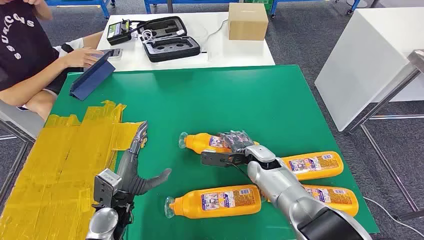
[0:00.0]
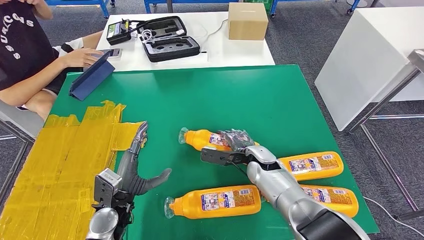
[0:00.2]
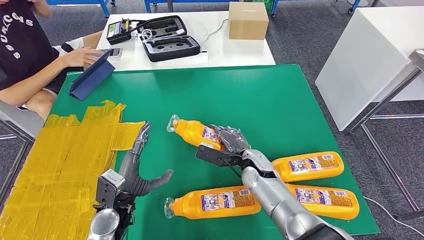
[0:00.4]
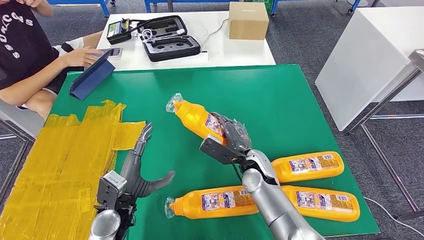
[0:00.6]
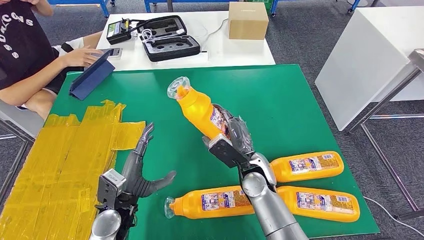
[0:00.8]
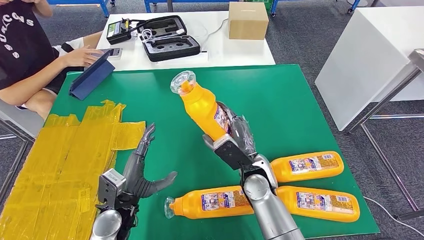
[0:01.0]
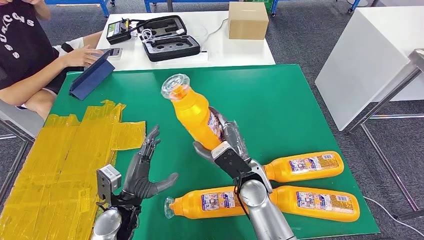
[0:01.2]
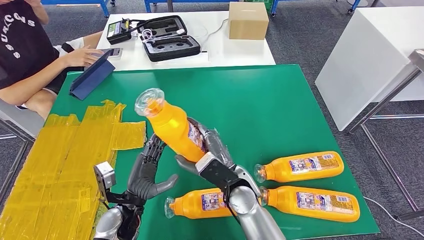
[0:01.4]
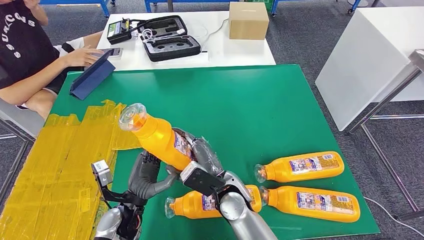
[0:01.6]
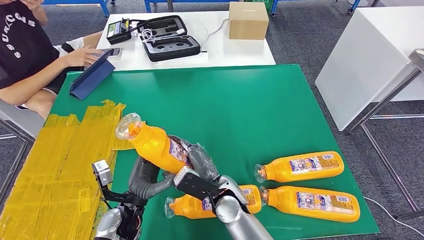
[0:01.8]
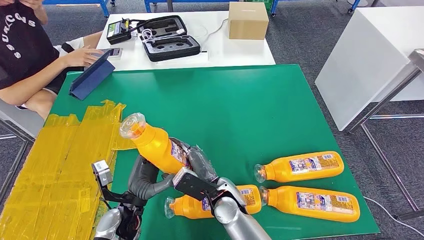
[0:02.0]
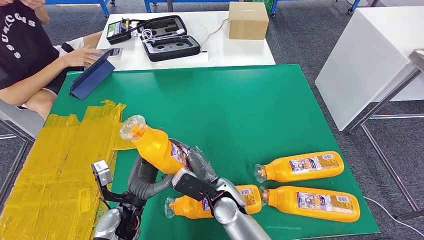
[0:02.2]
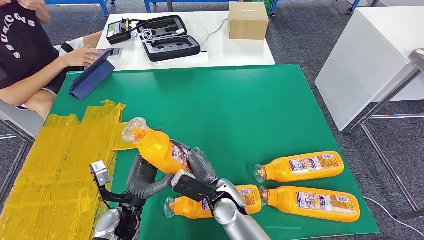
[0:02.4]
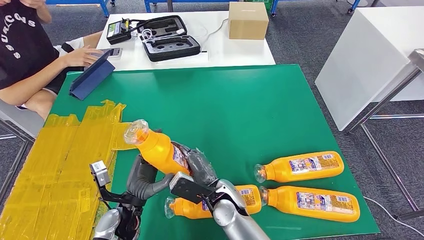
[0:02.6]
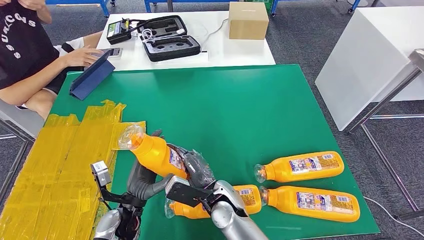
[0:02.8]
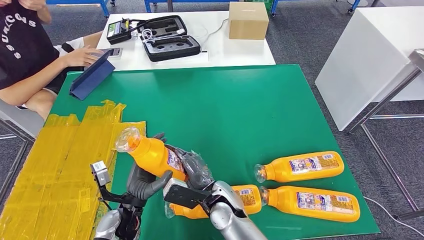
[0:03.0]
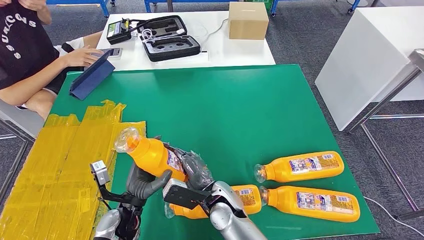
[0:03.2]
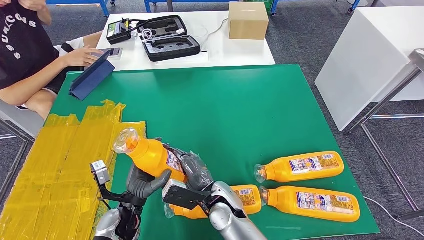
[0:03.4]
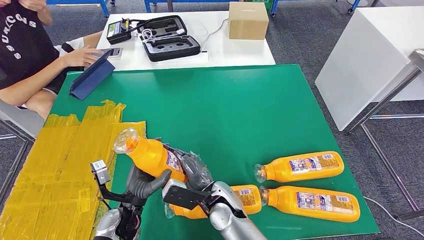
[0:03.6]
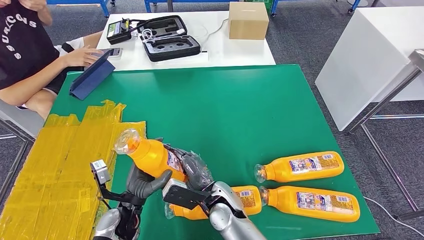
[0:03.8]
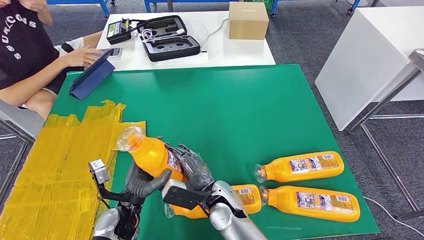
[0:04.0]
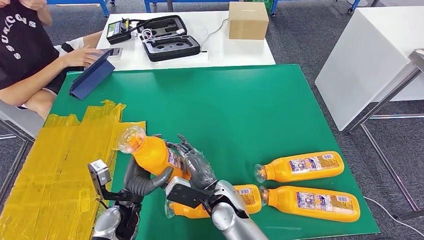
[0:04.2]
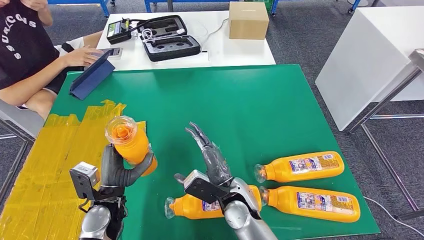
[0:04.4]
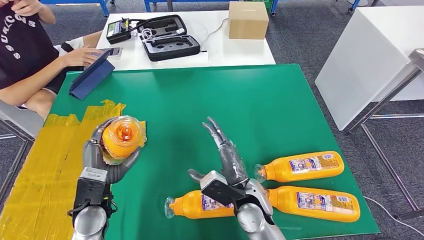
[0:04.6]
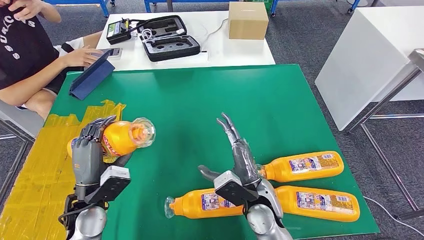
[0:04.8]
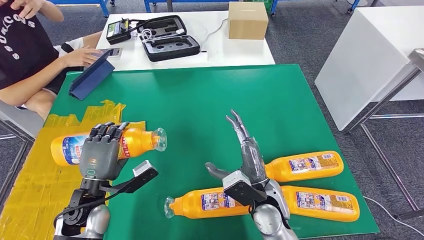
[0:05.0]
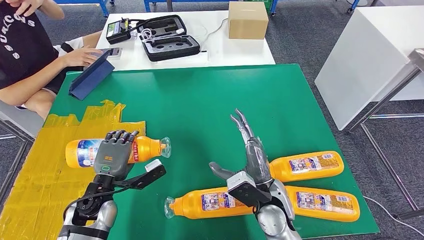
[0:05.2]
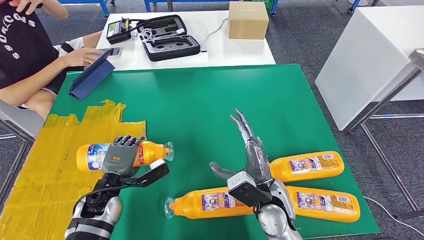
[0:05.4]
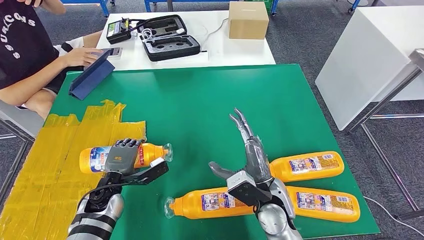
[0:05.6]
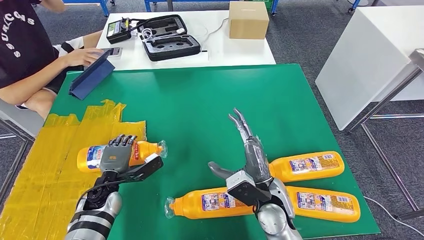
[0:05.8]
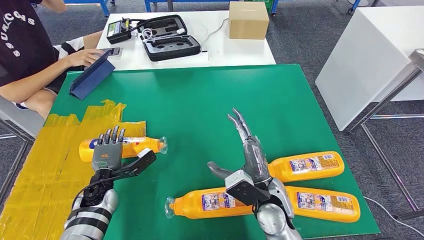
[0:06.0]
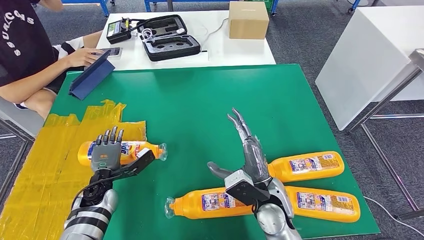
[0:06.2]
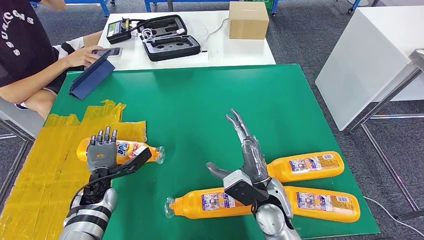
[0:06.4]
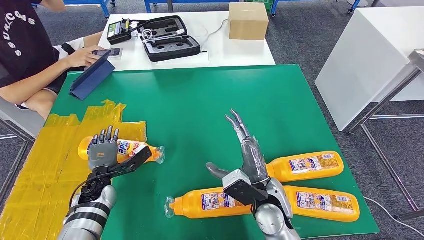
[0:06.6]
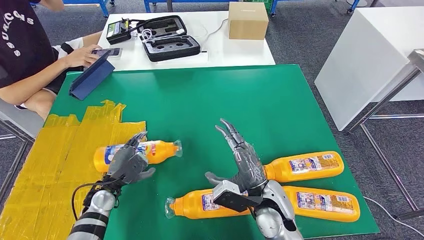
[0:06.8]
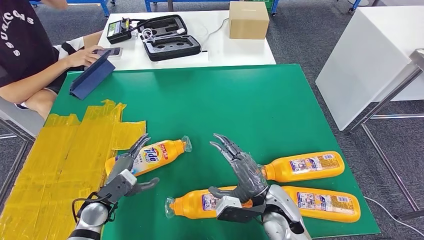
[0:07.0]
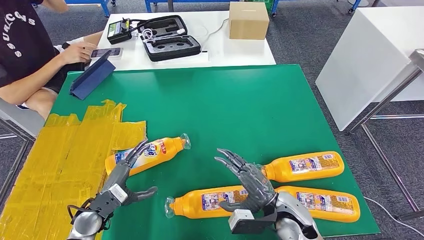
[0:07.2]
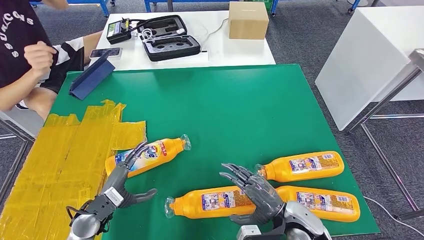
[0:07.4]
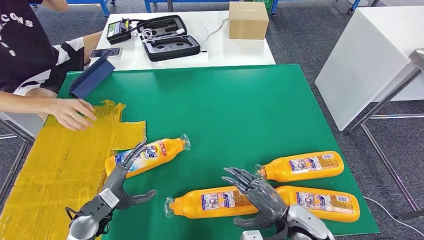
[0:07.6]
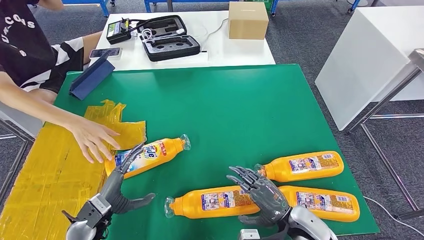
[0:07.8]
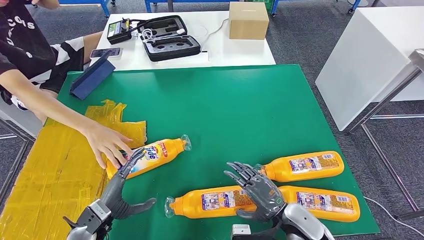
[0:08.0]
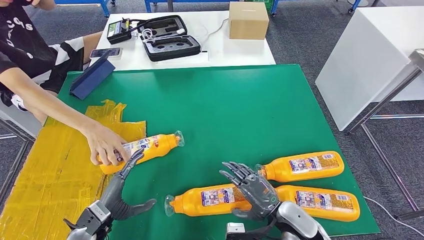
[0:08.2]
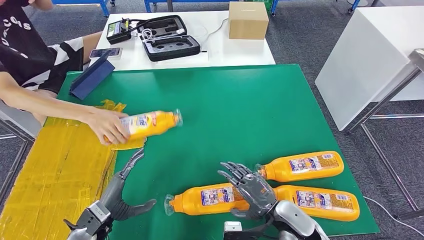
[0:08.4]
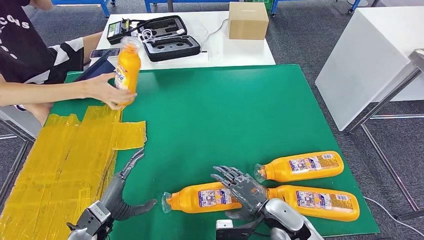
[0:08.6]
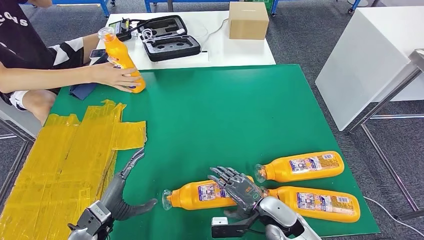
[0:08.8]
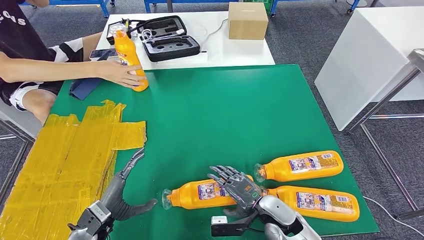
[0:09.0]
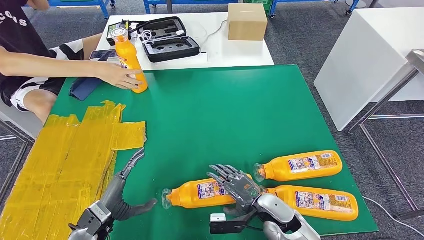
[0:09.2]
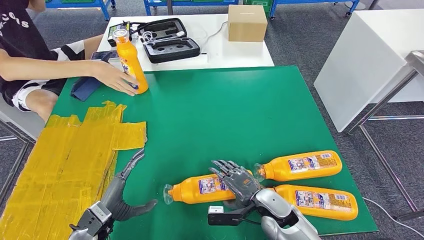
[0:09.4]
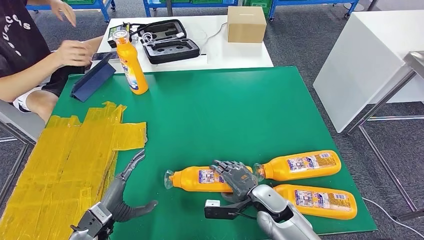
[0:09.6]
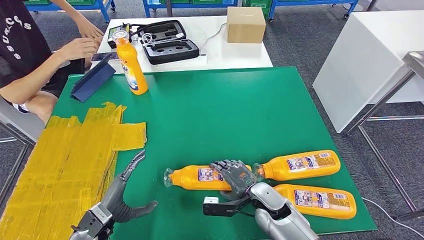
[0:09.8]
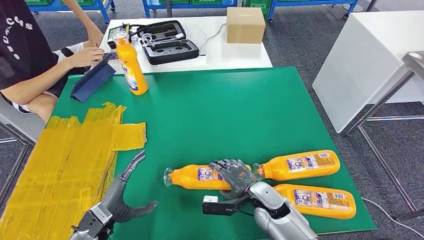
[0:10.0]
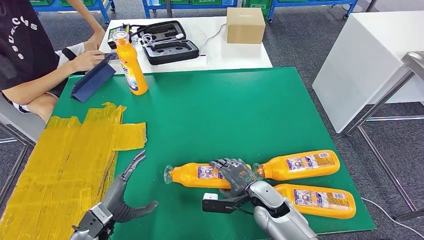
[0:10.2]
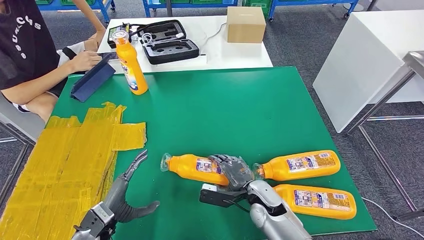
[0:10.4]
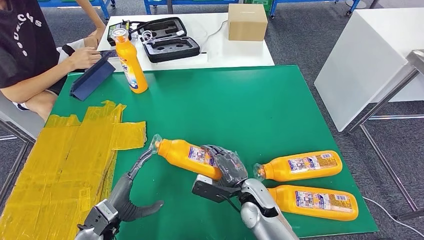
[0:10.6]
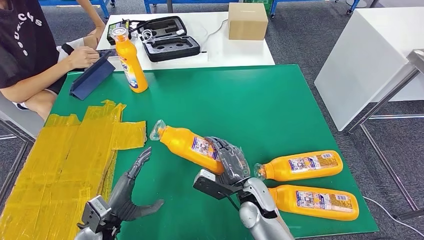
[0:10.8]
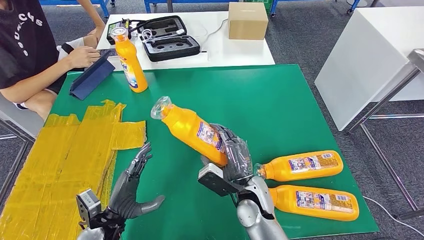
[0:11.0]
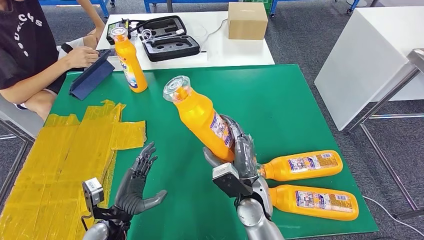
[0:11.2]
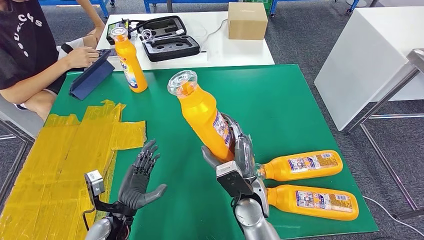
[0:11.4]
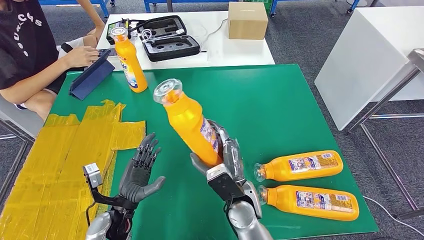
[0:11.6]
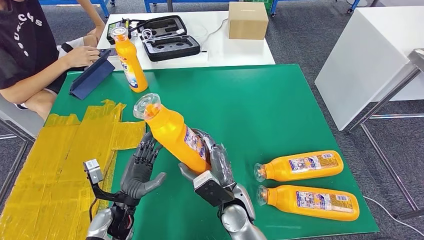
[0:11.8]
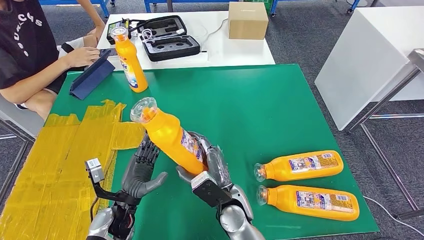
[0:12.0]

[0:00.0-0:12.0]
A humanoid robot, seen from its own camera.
Step, 0:00.0 to 0:03.6: Take the fast-moving consumer goods bottle from the table.
Step, 0:03.8 to 0:09.0: Flip the fast-moving consumer goods bottle to the front side.
0:01.6 to 0:03.0: The hands stay close to where they were, moving slightly.
0:04.4 to 0:06.0: The left hand heads forward and to the left, covering about 10 cm. Meanwhile the right hand goes approximately 5 cm to the right.
0:06.0 to 0:07.6: The right hand is displaced to the right, downward and backward by approximately 10 cm. Meanwhile the left hand shifts roughly 10 cm backward.
0:07.6 to 0:09.0: The right hand shifts by about 5 cm.

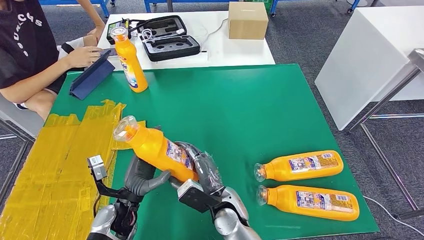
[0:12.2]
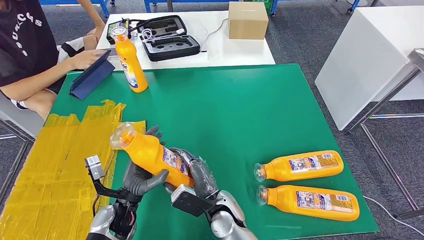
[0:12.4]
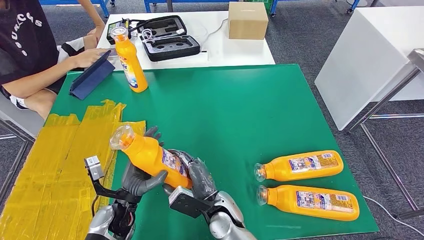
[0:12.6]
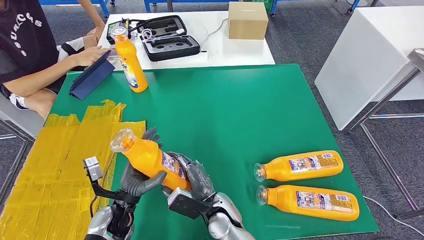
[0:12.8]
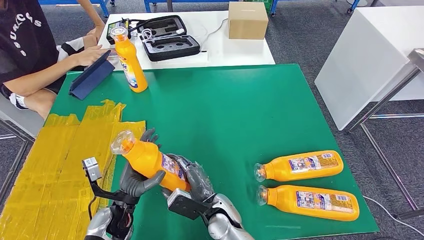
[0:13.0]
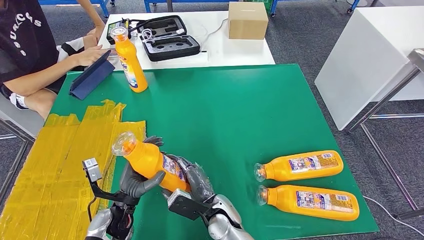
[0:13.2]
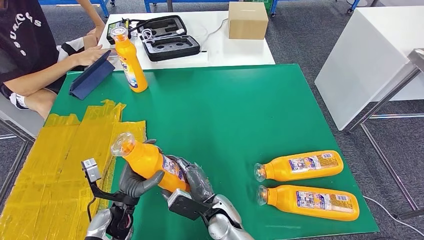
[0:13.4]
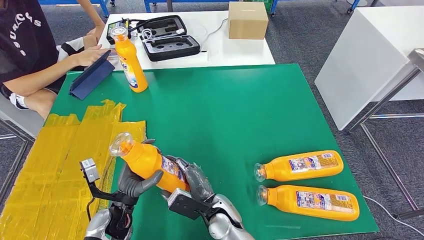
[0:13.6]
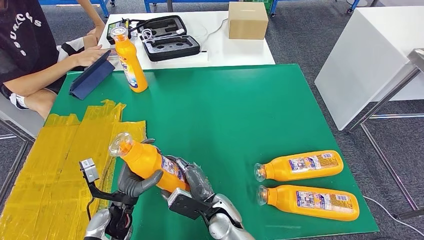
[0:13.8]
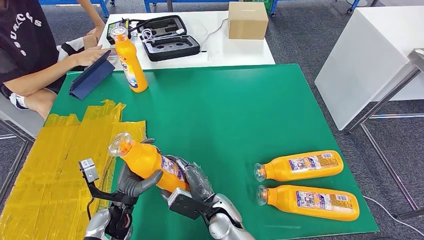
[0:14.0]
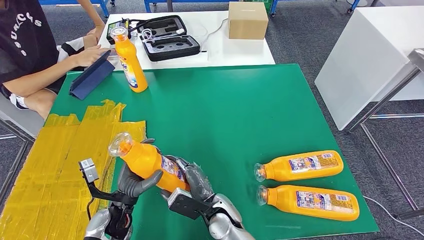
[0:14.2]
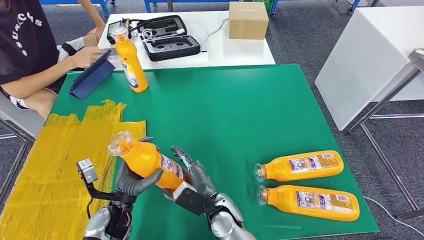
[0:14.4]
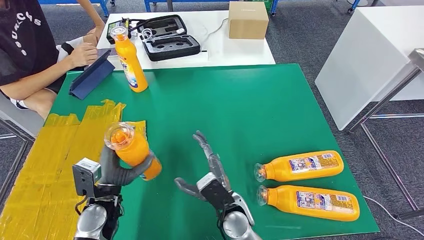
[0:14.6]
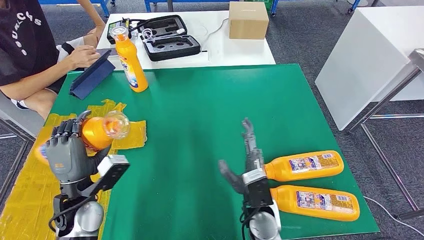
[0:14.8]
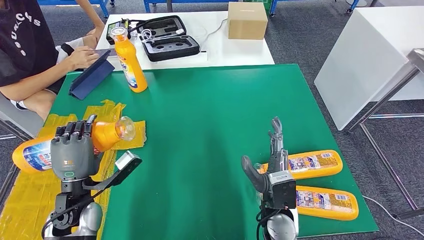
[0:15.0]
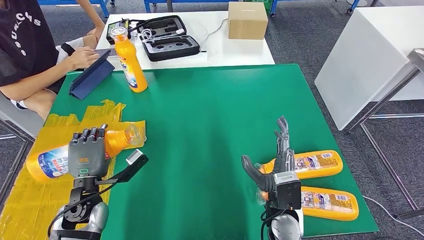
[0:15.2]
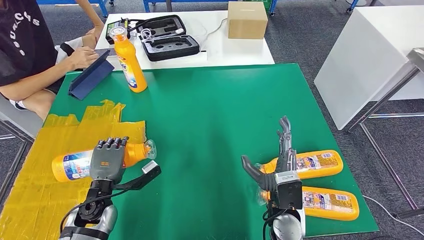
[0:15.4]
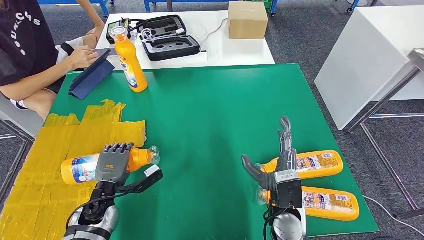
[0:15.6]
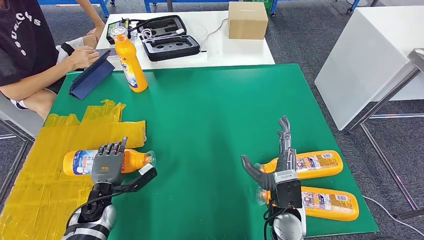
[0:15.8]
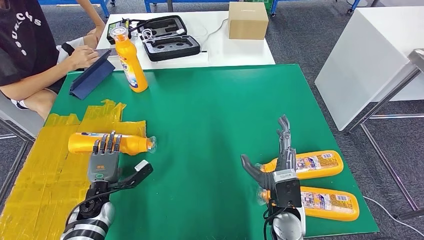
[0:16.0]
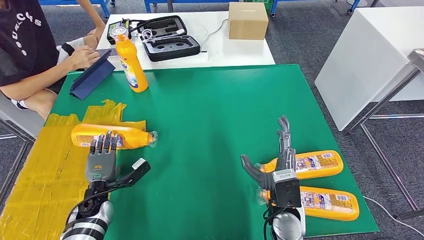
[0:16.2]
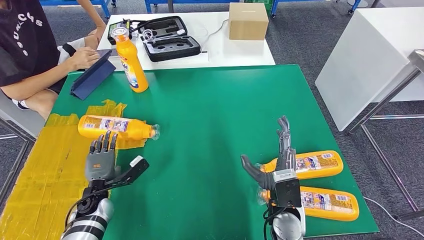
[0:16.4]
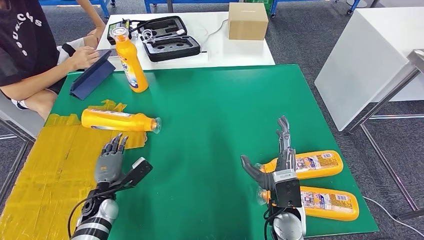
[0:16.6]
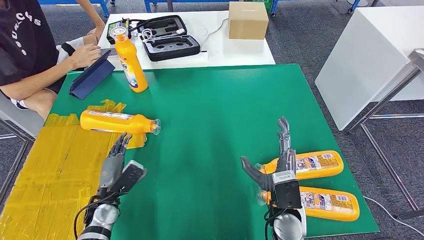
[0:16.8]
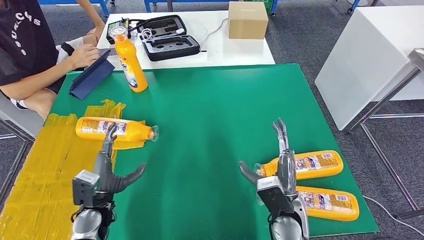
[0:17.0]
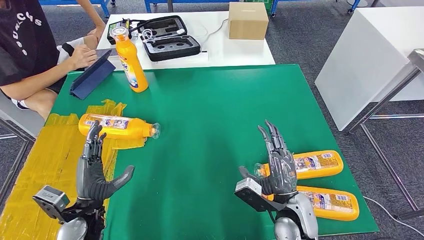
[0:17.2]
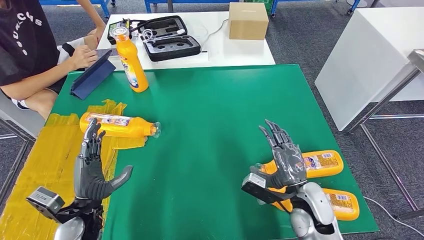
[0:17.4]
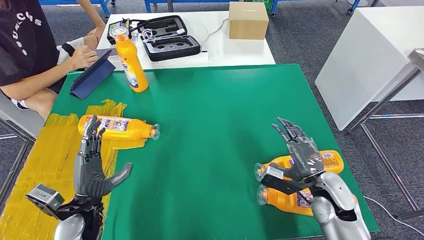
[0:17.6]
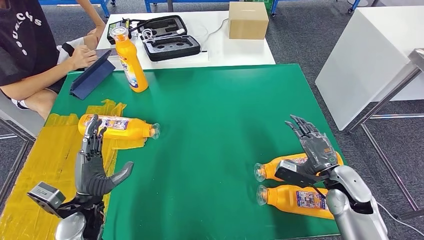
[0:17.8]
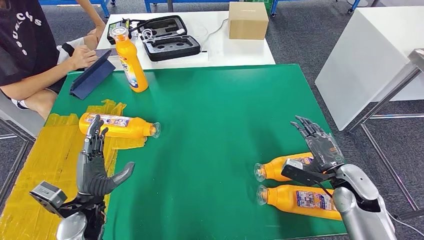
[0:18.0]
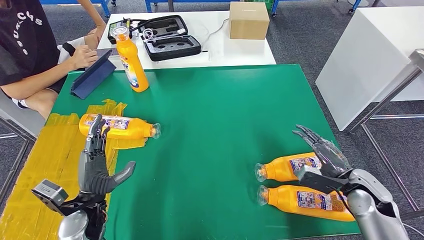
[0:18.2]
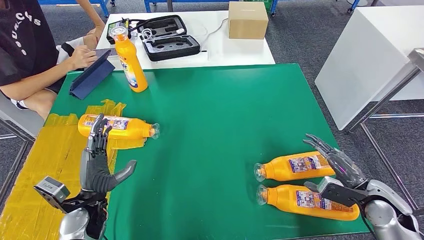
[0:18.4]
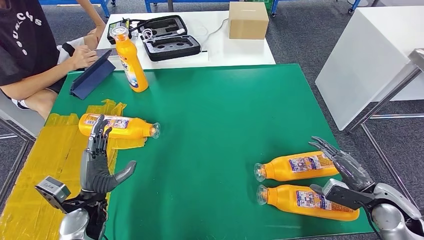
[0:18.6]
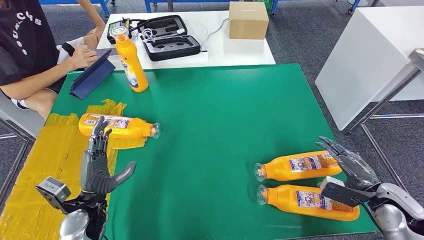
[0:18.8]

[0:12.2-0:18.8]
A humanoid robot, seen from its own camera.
Step, 0:13.6 to 0:17.2: Flip the fast-moving consumer goods bottle to the front side.
0:12.2 to 0:13.8: The hands make only small movements.
0:13.8 to 0:15.4: The right hand moves to the right and upward, about 15 cm. The left hand travels upward and back again, roughly 10 cm each way.
0:15.4 to 0:17.2: The left hand moves about 5 cm downward and comes back.
0:17.2 to 0:18.8: The right hand heads to the right, covering approximately 25 cm.
